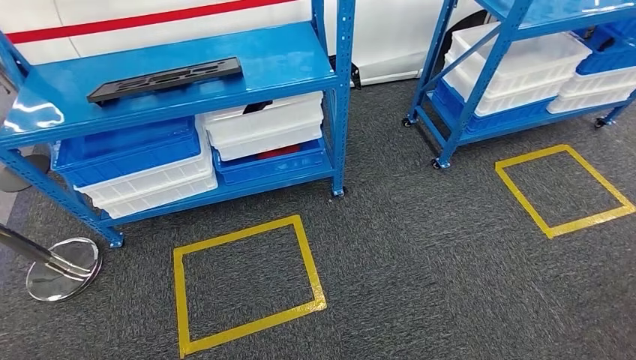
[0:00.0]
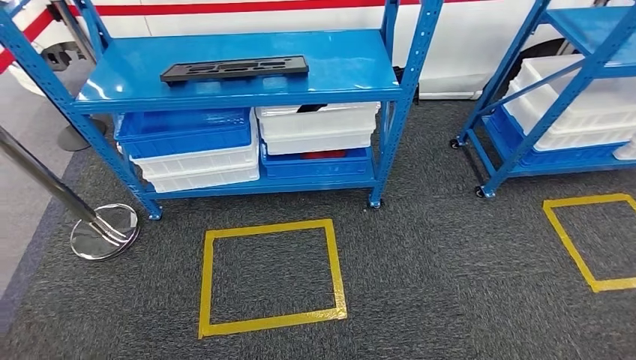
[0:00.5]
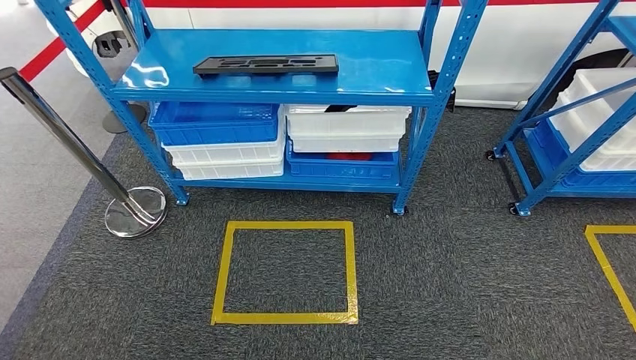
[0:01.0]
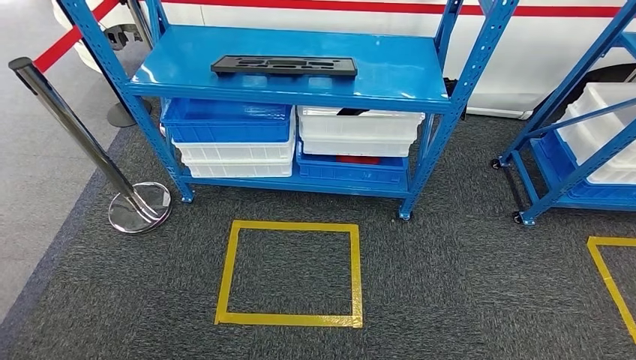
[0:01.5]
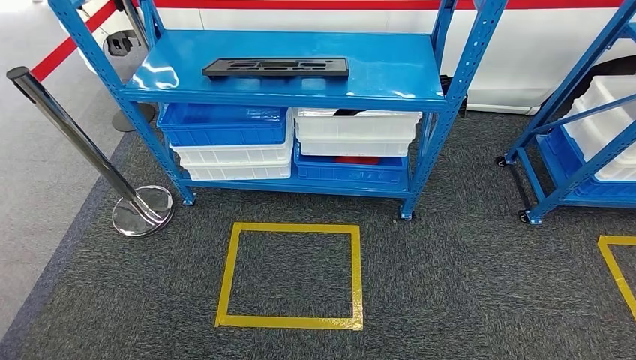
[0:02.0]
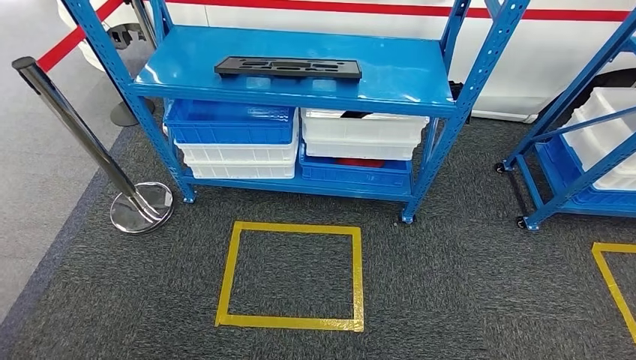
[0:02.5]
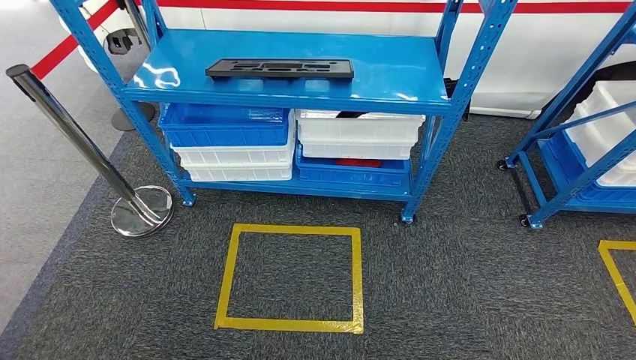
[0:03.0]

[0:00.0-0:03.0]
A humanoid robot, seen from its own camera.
Step, 0:00.0 to 0:03.0: Move to the initial position of the shelf.
0:01.5 to 0:03.0: The left hand travels to the left by roughly 5 cm; the right hand heads backward, covering some 5 cm.

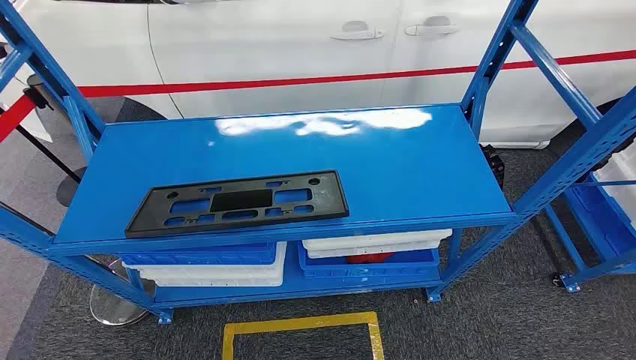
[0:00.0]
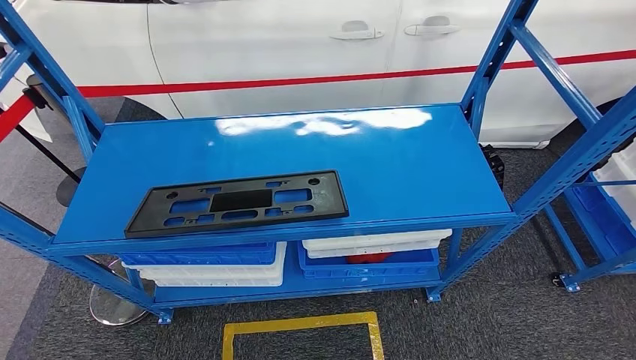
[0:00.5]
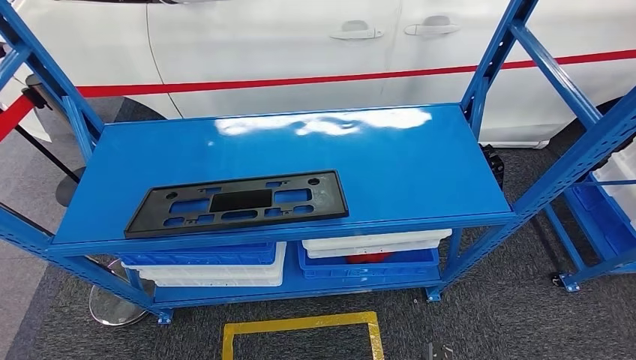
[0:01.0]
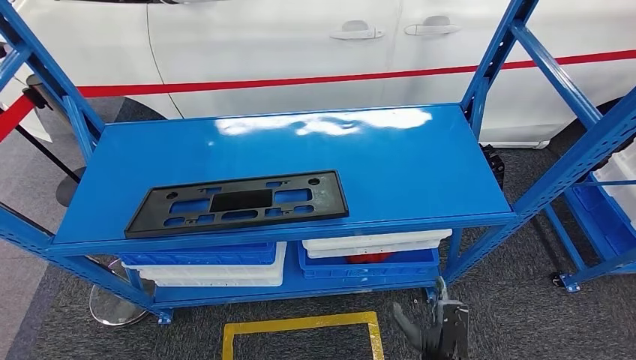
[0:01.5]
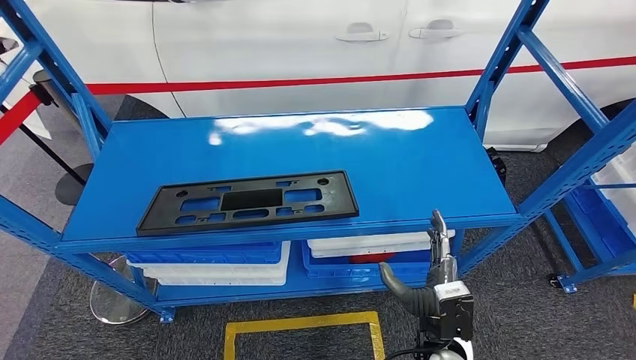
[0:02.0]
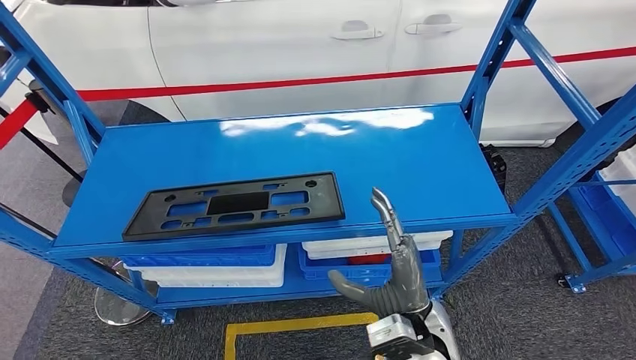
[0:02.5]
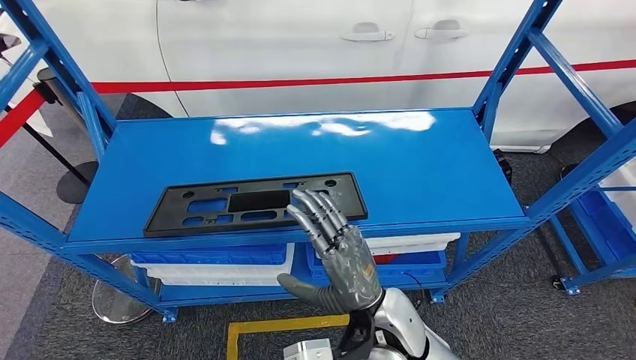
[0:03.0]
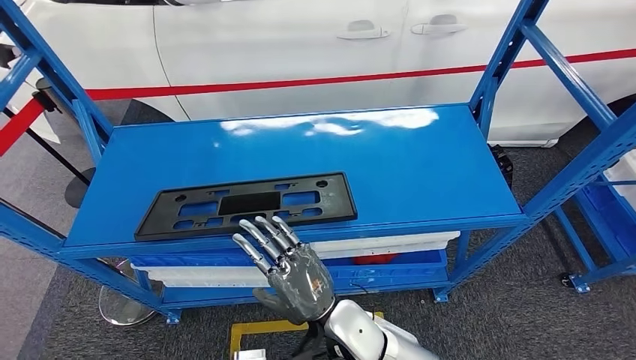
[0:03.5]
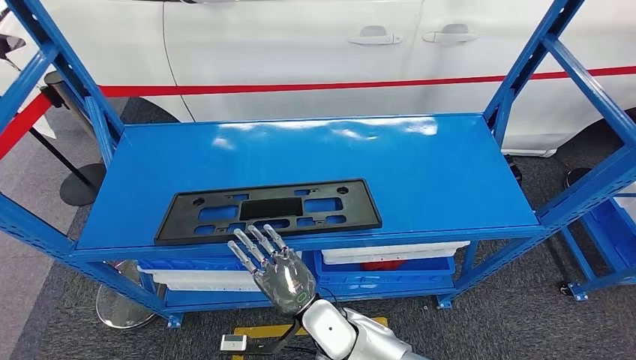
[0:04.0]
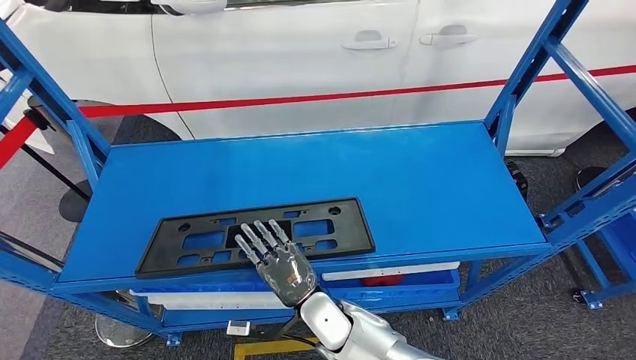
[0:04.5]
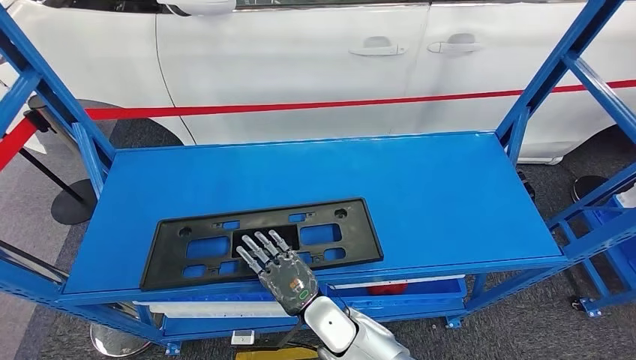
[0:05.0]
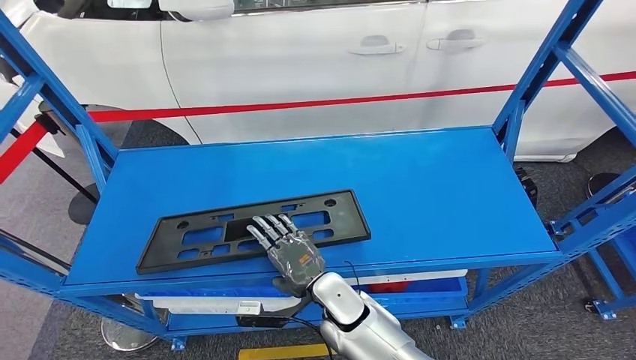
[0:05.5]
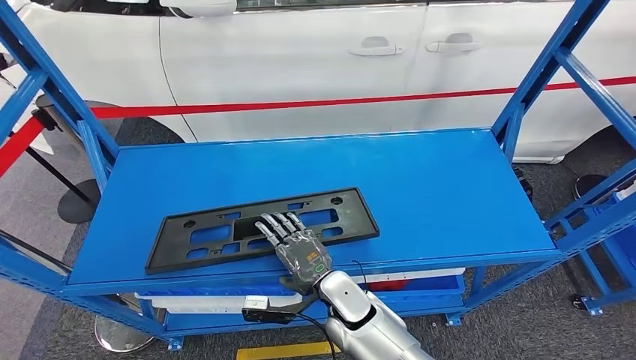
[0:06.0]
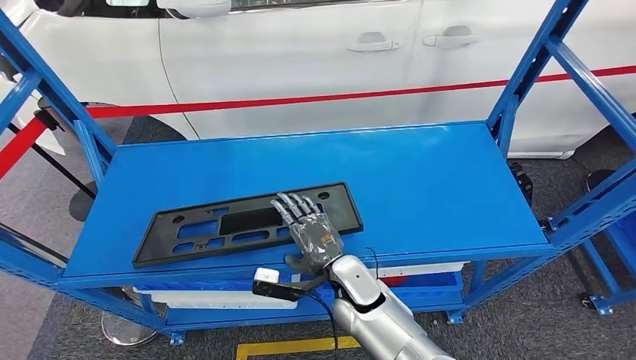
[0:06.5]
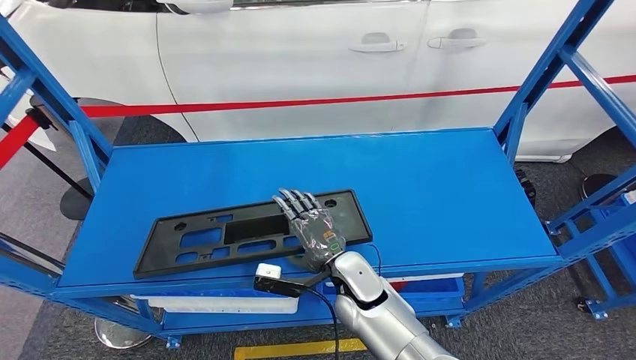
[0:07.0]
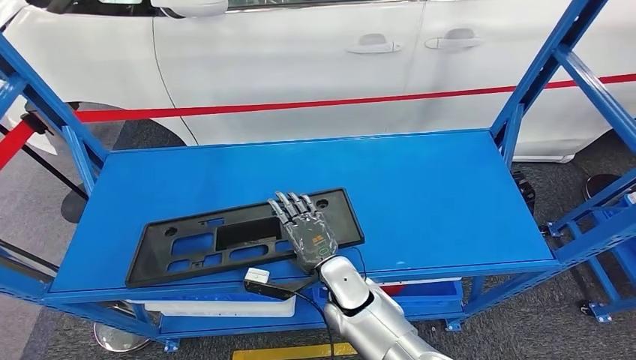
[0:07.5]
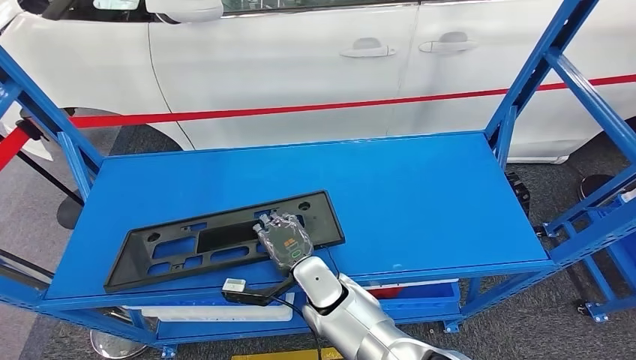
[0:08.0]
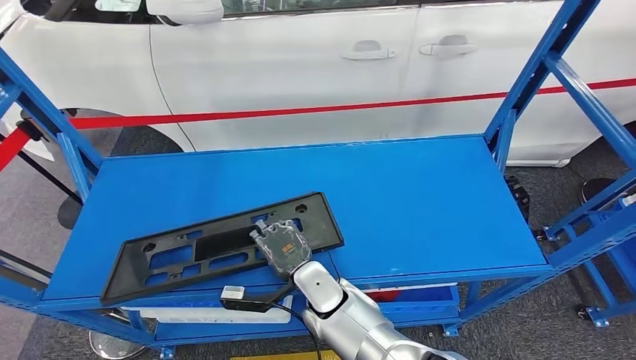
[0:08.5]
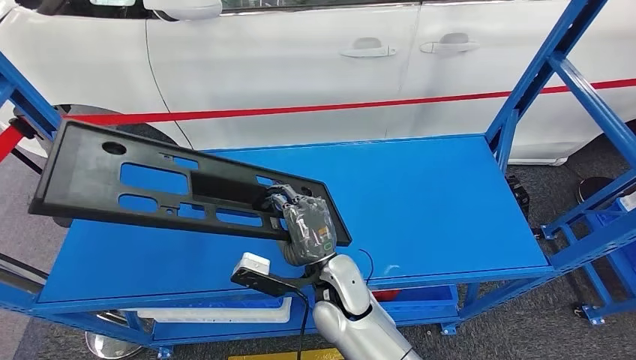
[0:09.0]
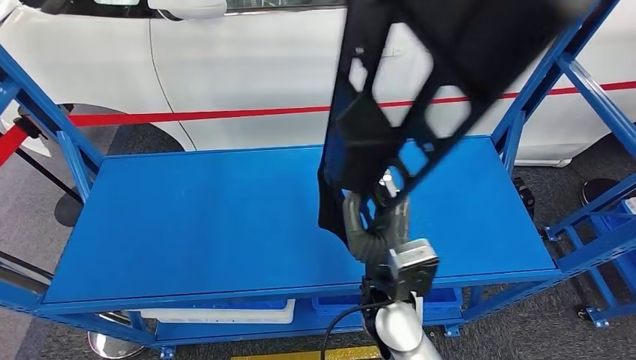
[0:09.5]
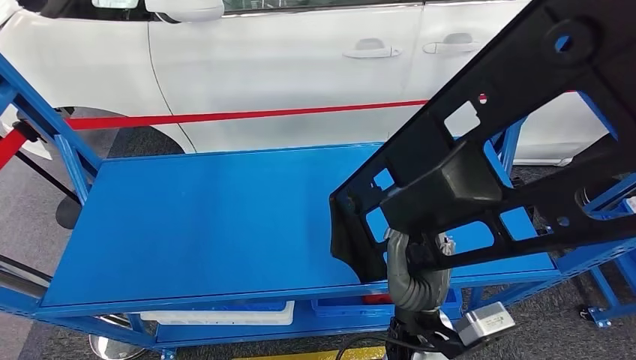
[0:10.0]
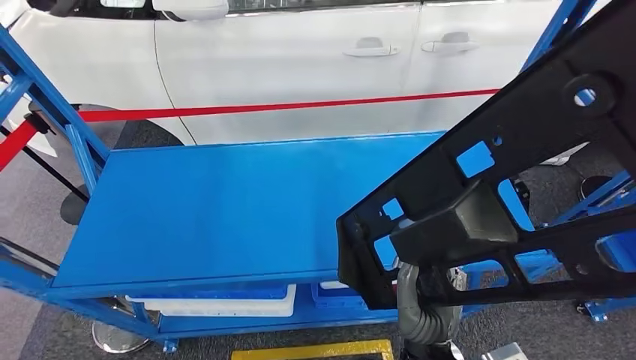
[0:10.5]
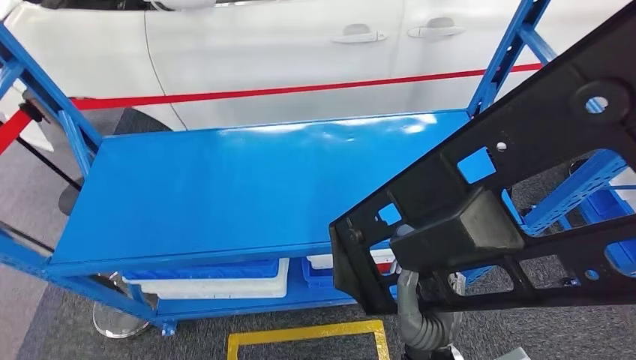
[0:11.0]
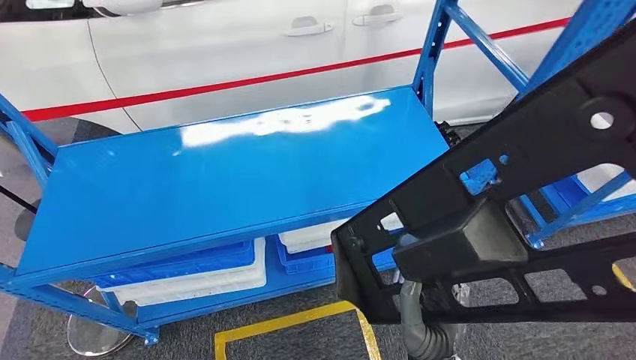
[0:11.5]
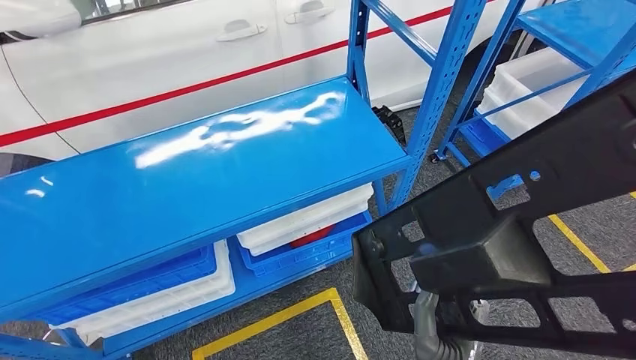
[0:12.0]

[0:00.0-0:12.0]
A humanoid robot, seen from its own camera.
Step, 0:00.0 to 0:10.0: Pick up the large material from the shelf.

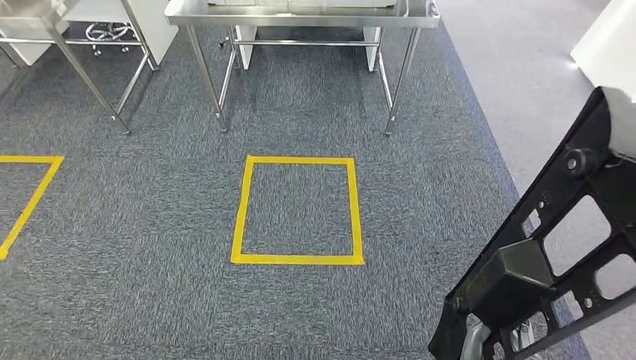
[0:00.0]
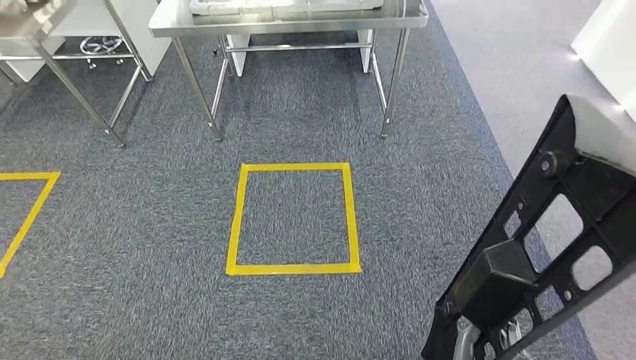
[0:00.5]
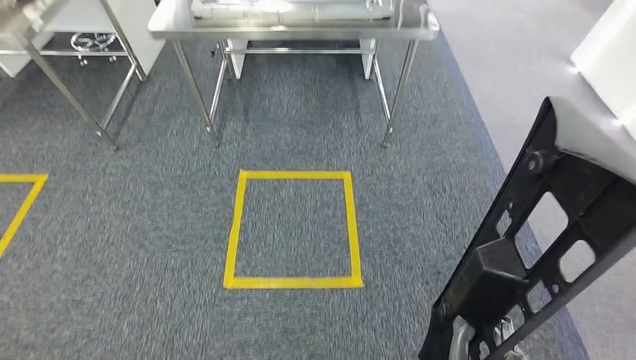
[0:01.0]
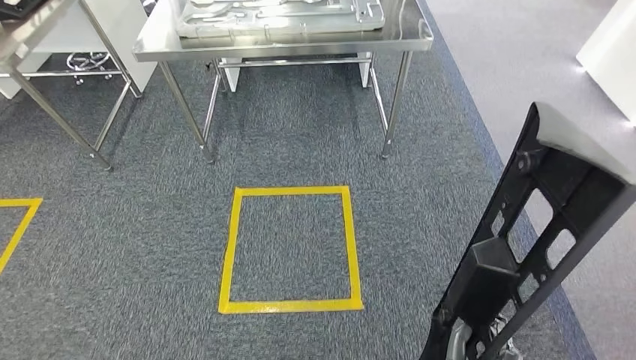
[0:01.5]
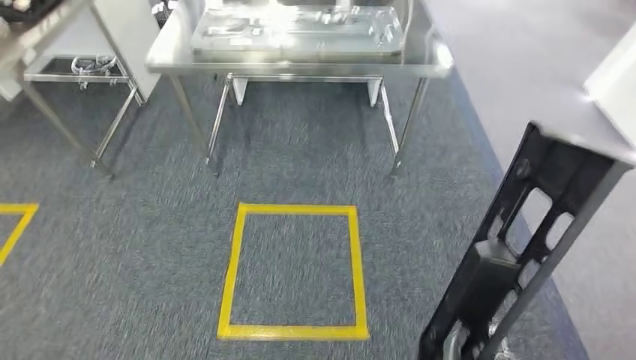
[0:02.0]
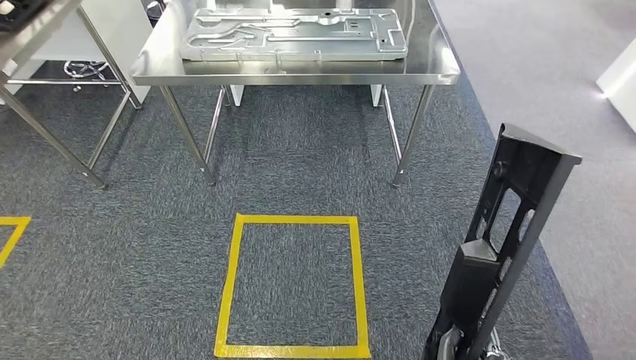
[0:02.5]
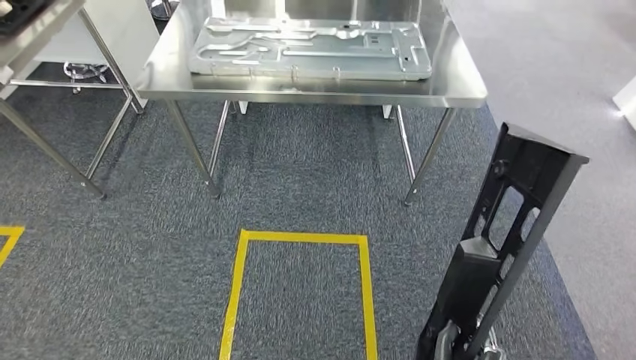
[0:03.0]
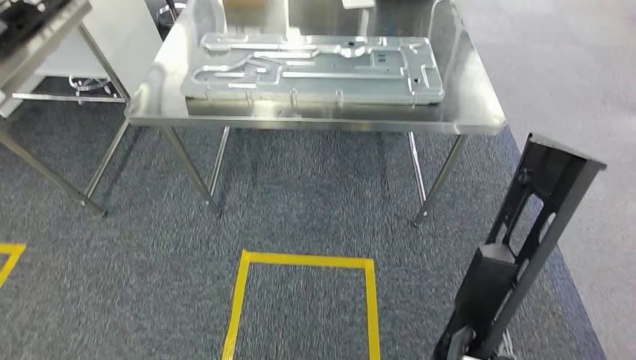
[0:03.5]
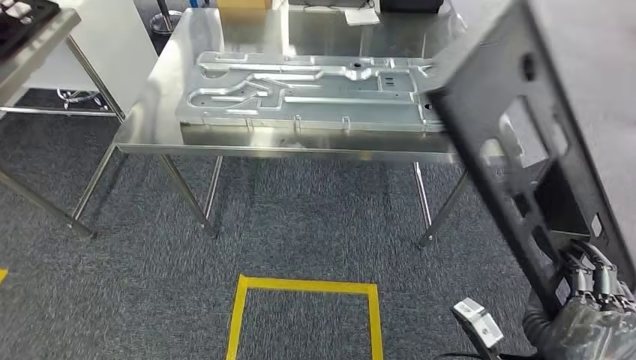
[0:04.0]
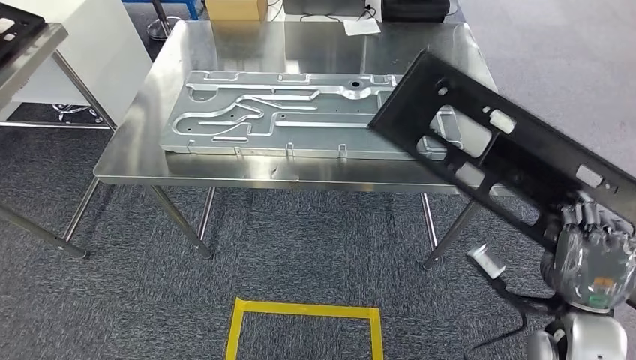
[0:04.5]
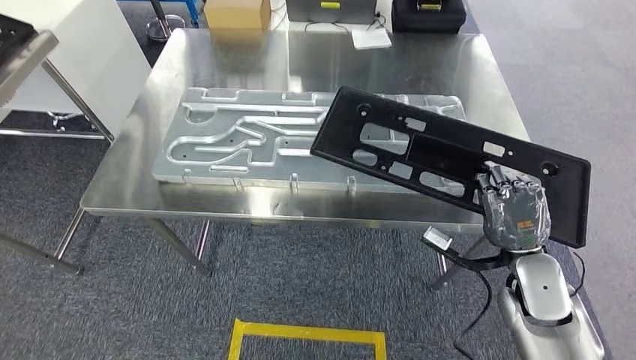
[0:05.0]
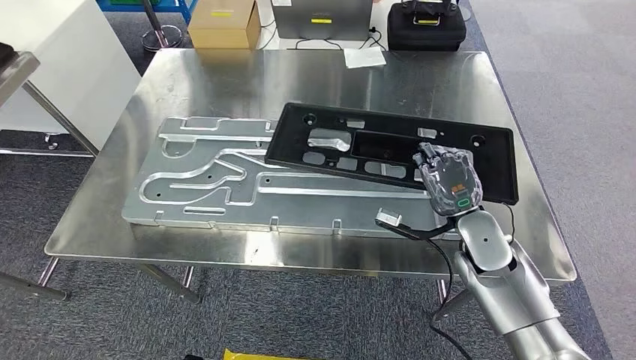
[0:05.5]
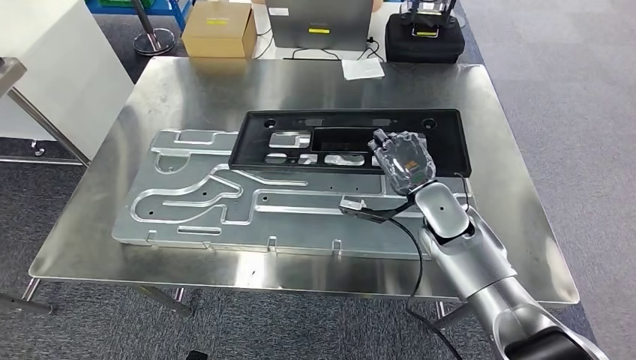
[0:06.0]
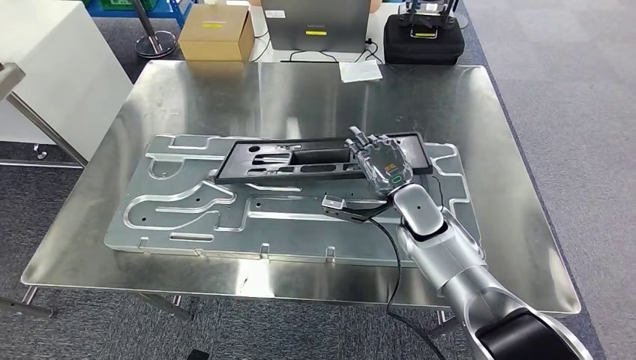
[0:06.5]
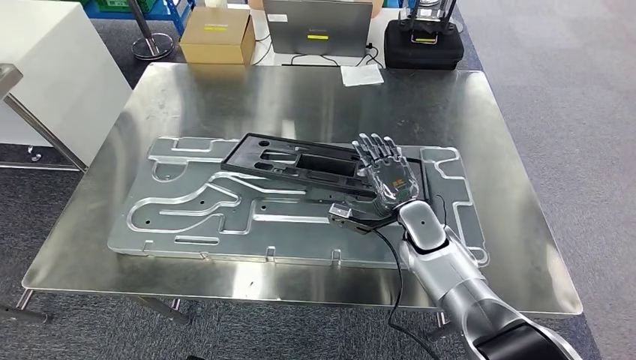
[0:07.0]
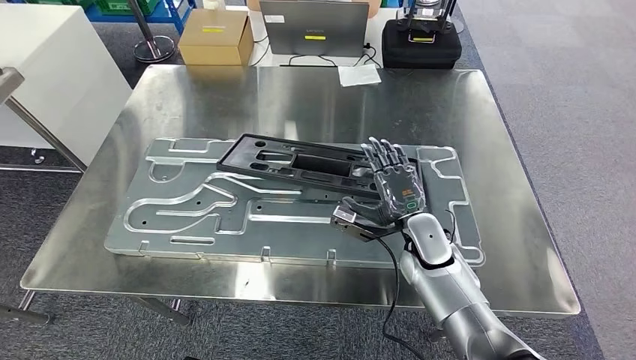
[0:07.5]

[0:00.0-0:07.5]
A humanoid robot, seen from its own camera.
Step, 0:00.0 to 0:04.0: Move the large material to the workbench.
